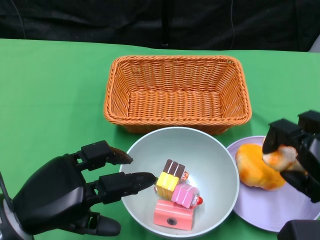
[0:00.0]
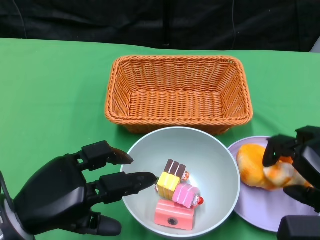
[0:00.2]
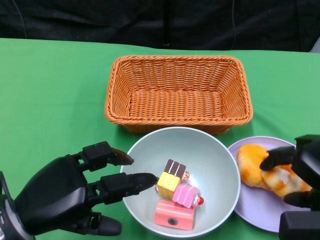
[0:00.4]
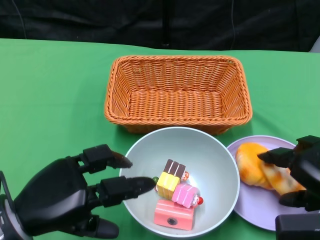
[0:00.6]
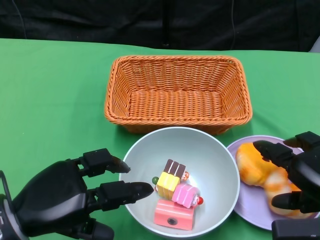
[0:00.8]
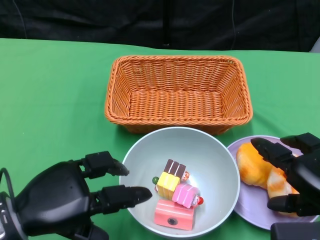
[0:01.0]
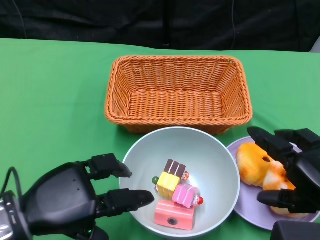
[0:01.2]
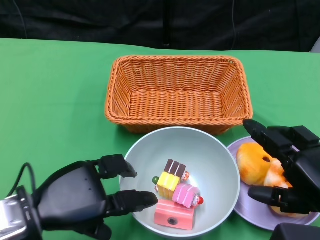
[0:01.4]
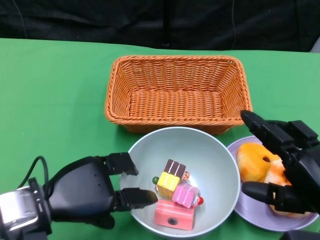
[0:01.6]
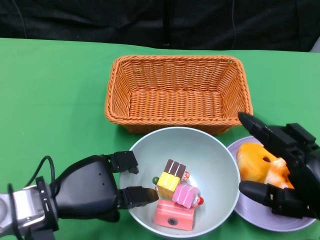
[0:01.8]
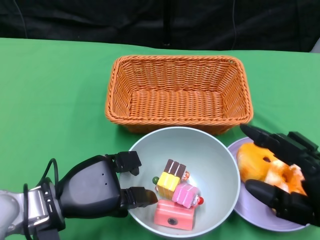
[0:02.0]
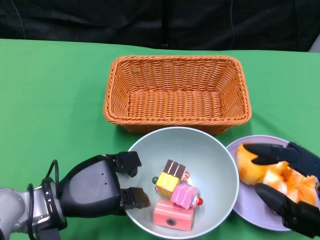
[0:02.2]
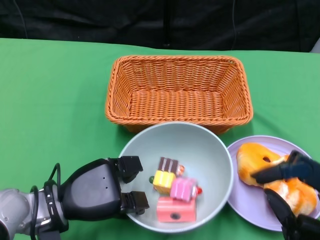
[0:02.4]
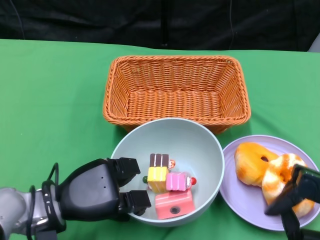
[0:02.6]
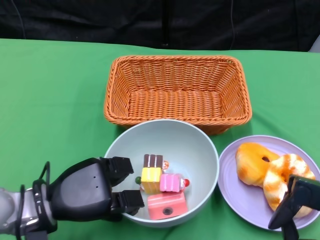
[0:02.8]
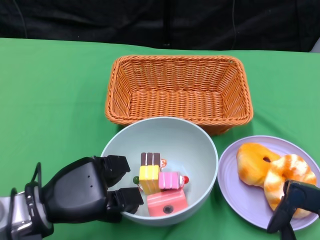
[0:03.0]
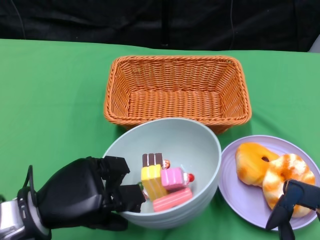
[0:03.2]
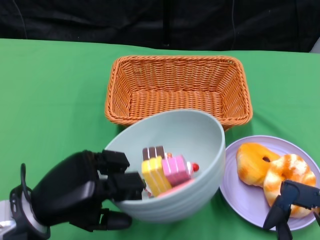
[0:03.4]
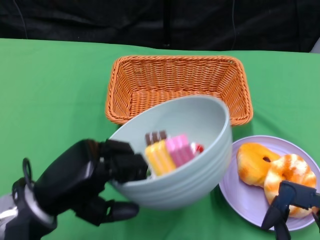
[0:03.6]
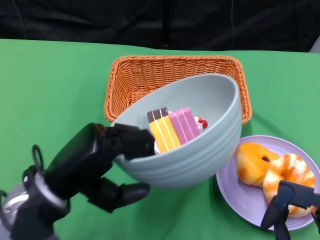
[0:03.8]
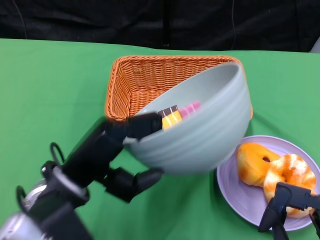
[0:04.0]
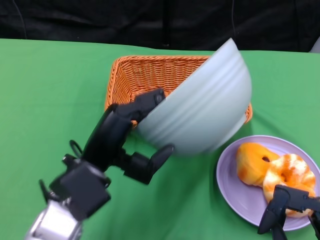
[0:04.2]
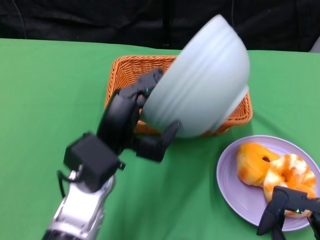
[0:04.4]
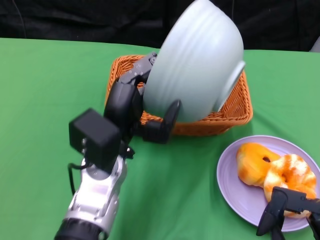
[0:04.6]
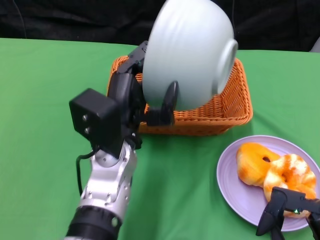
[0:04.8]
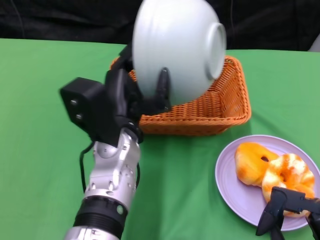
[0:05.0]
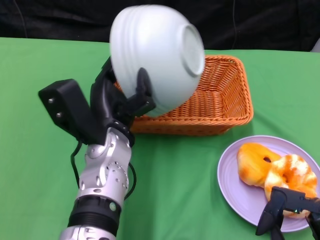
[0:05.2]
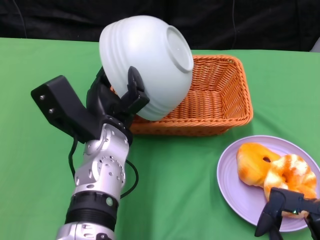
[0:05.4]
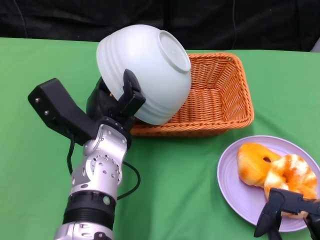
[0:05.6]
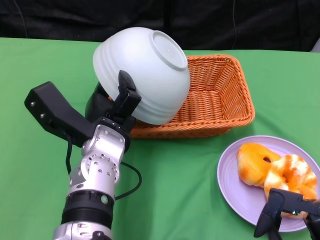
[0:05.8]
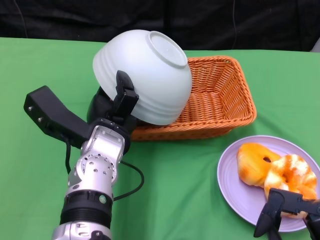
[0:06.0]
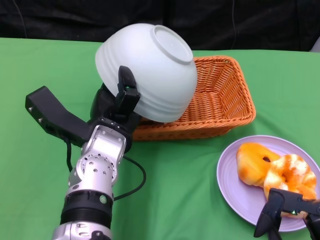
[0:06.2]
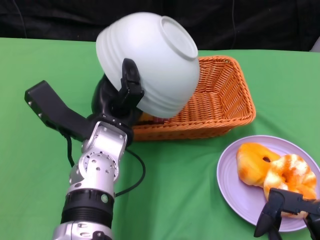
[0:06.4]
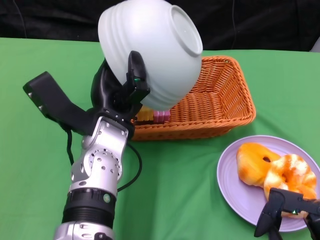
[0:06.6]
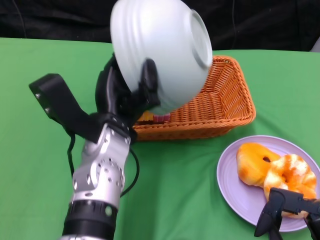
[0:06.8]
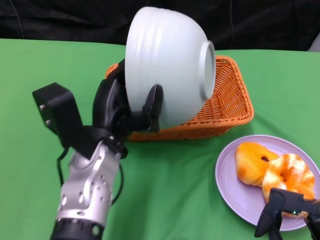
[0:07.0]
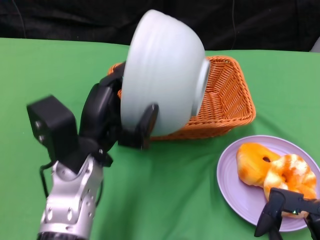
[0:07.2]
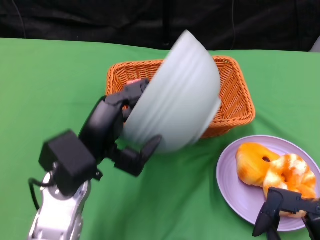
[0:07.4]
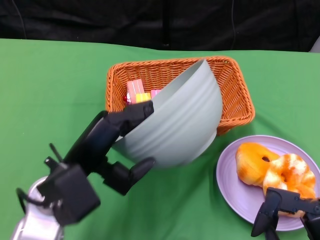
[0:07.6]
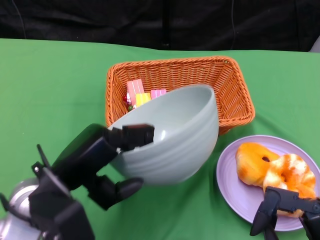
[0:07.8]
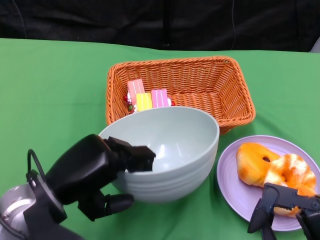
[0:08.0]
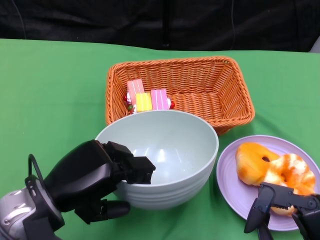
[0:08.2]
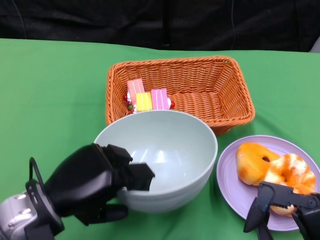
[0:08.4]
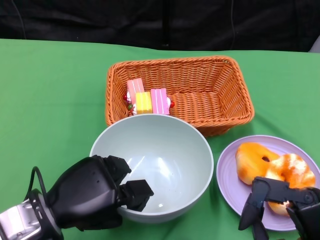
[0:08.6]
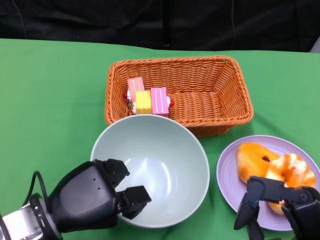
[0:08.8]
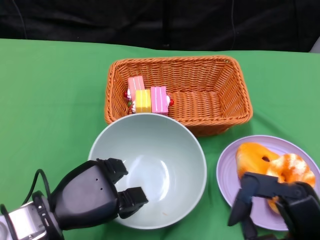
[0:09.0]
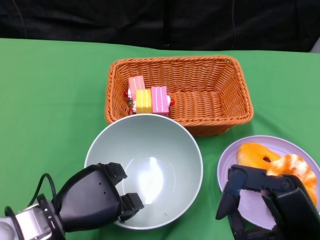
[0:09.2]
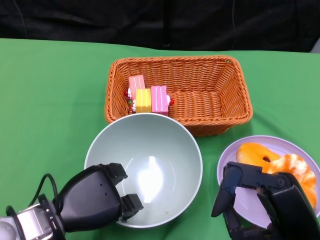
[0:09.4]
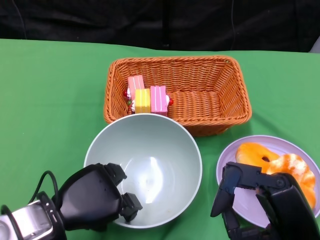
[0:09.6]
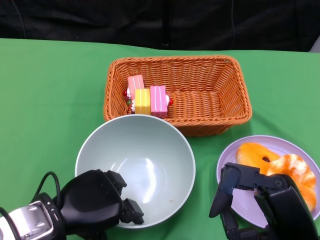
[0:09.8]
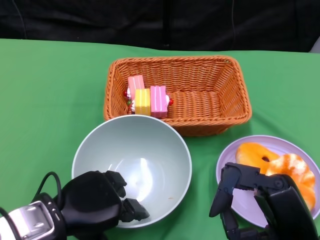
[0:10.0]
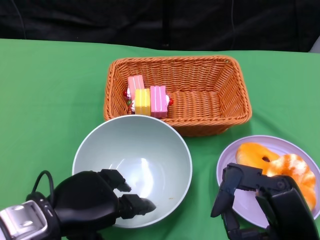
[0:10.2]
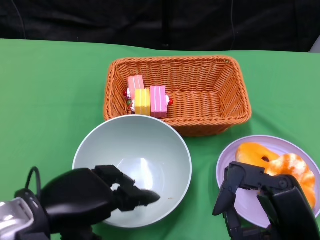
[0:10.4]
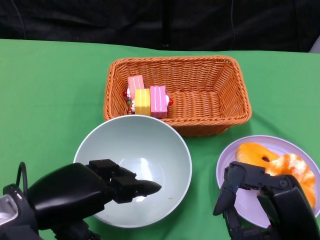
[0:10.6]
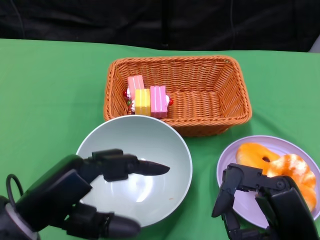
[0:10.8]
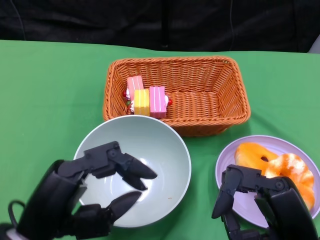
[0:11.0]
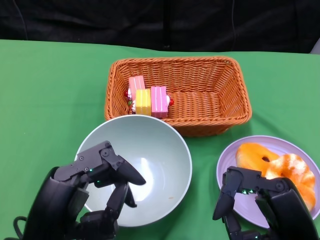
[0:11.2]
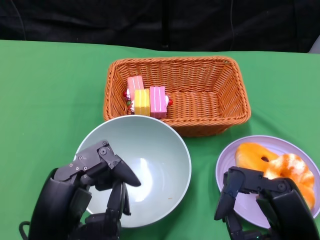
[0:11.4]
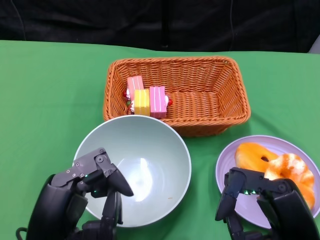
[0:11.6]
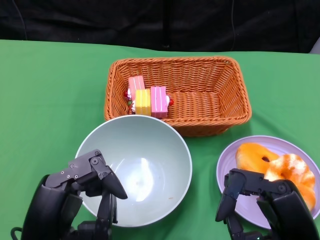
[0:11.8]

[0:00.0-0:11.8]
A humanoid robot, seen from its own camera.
Step, 0:01.2 to 0:02.6: Grasp the bowl with the left gripper.
Step, 0:02.8 to 0:06.0: Pour the cake into the basket with the left gripper.
Step, 0:06.2 to 0:10.0: Place the bowl on the table with the left gripper.
0:01.4 to 0:03.0: The right hand travels backward by some 5 cm.
0:03.0 to 0:04.4: The left hand moves to the right and upward, some 10 cm.
0:06.0 to 0:07.4: The left hand goes about 5 cm backward and to the left.
0:07.4 to 0:08.8: The left hand shifts some 5 cm to the left.
0:08.8 to 0:10.4: The left hand goes approximately 5 cm upward.
0:10.4 to 0:11.8: The left hand goes roughly 5 cm backward.
